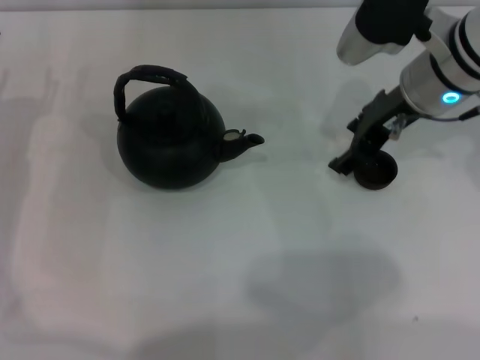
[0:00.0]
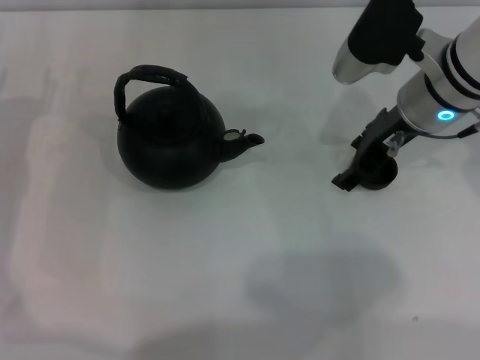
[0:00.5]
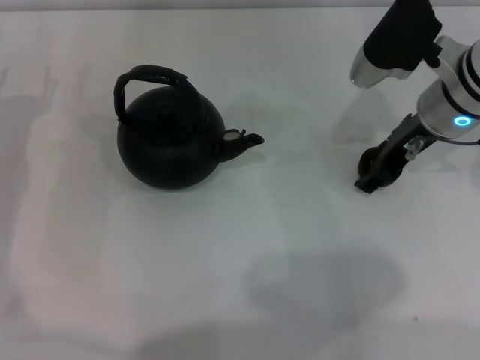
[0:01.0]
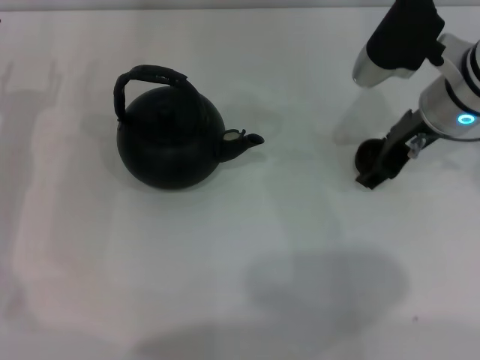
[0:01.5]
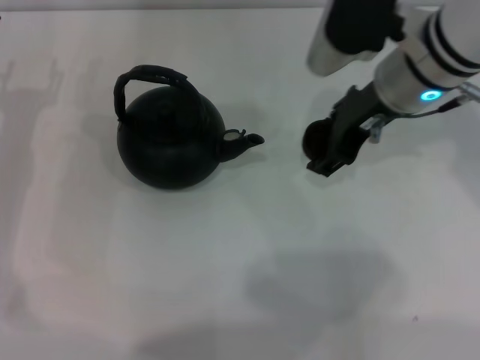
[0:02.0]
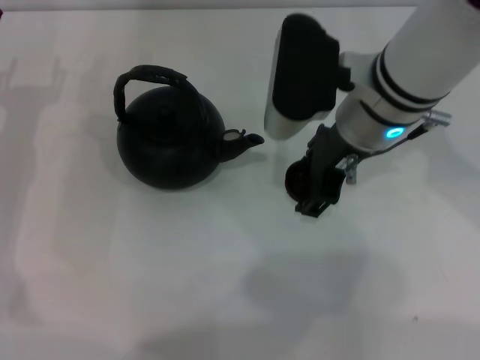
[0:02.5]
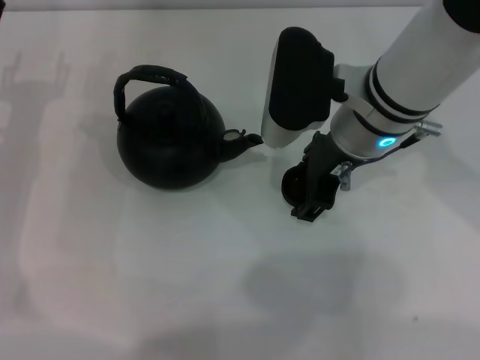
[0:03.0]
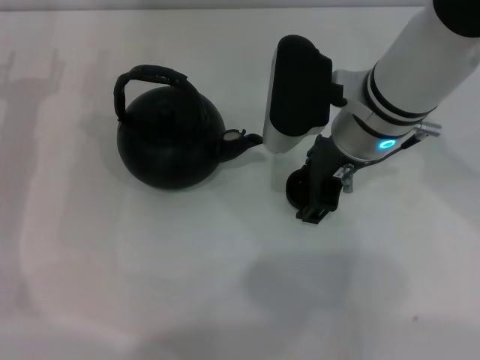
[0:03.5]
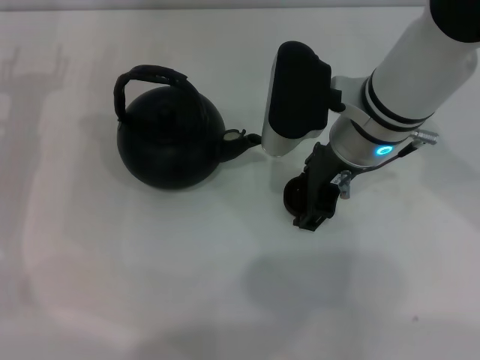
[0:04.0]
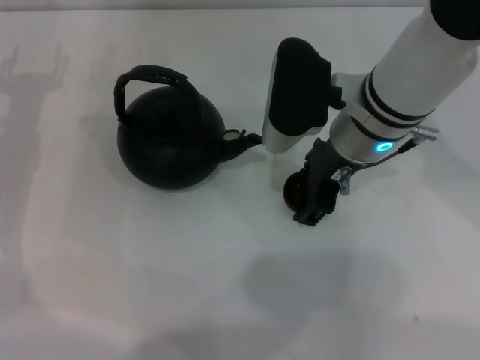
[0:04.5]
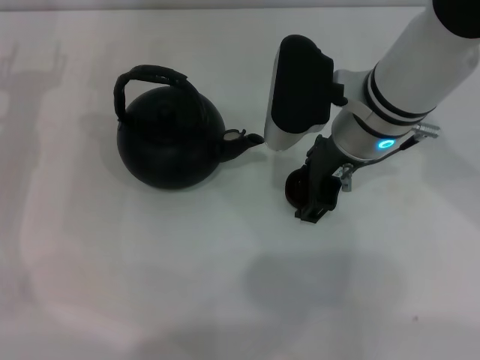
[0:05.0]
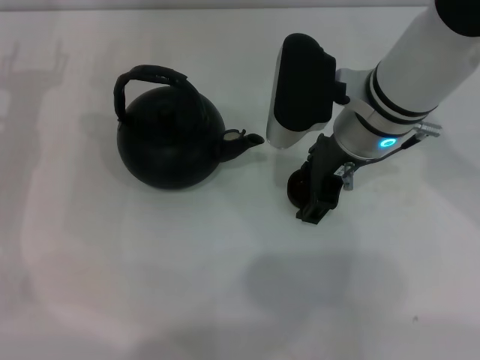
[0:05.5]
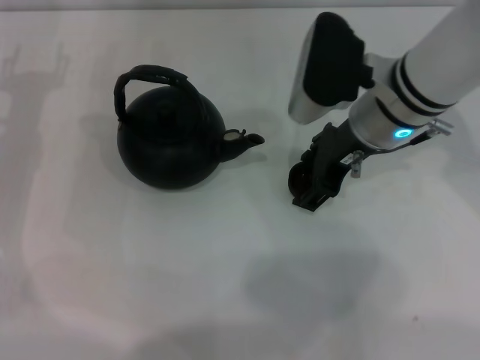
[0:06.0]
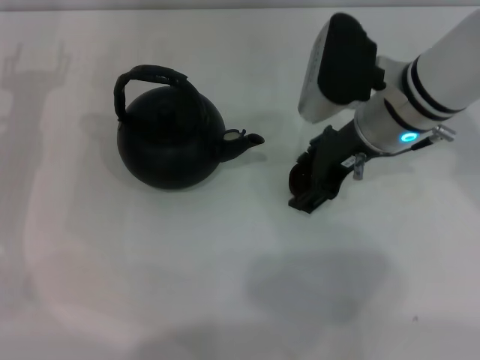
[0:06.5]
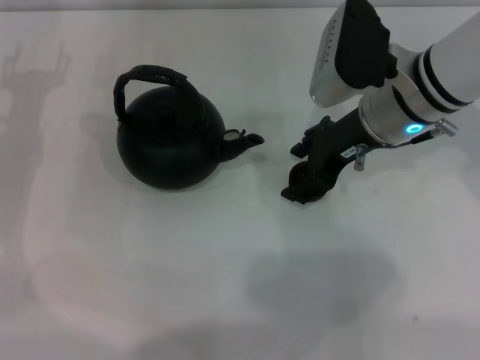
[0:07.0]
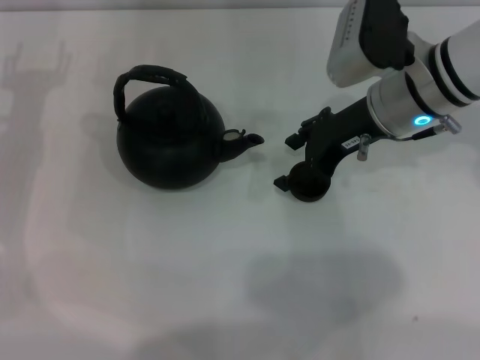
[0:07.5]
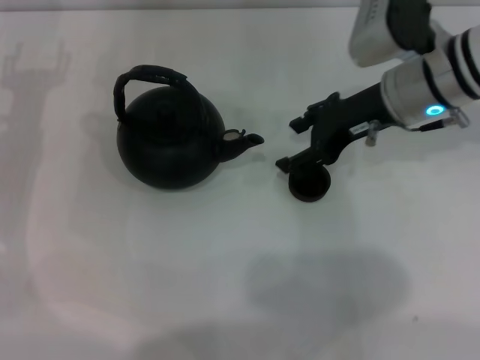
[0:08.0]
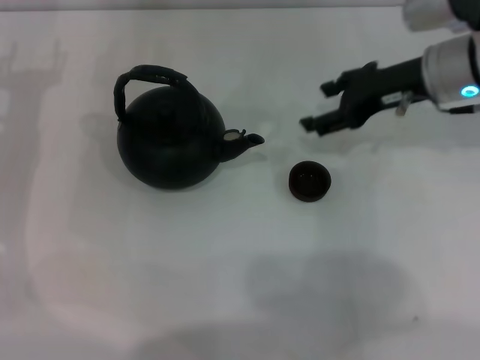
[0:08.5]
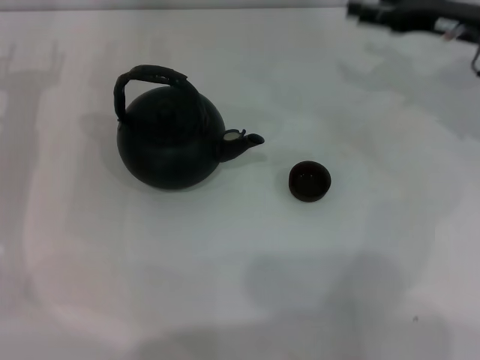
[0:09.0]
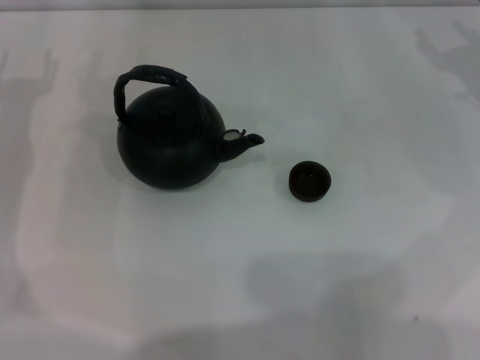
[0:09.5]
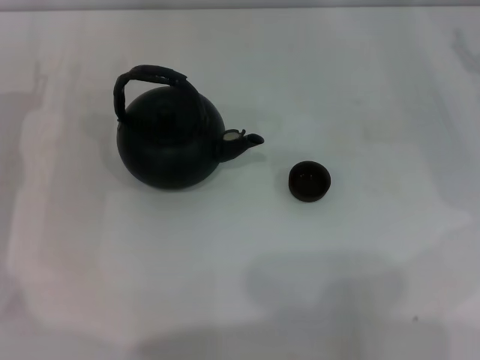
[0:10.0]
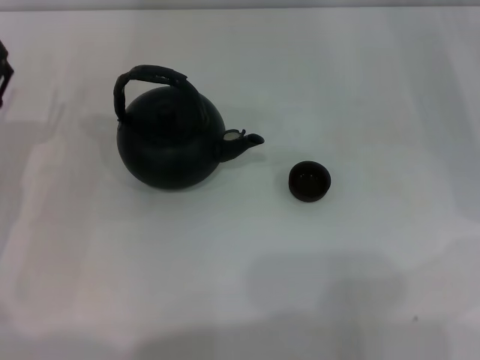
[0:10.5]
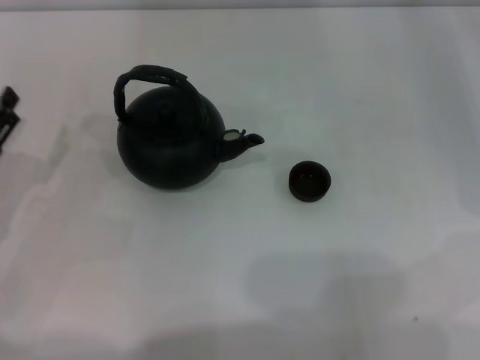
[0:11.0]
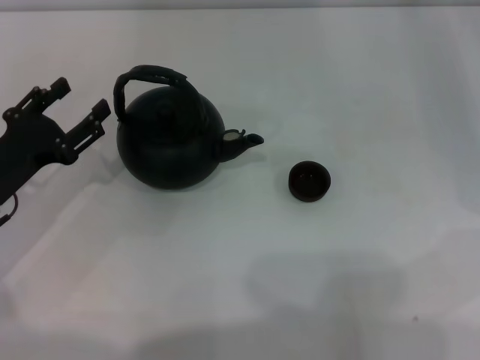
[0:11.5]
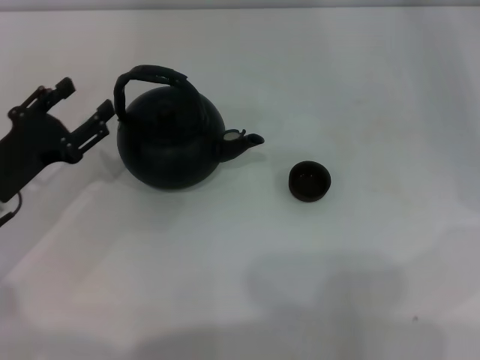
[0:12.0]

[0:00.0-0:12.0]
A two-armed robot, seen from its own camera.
Task of the whole recording: Grasp the handle of the teapot with one hand and pour tea into the teacup.
Step, 0:02.0 to 0:08.5: Place the teacup in the center of view with the right gripper.
0:00.0 to 0:02.0: The grippers make only small movements.
0:02.0 to 0:04.0: The right gripper ends up about 5 cm from where it was.
0:04.0 to 0:06.0: The grippers move only a little.
0:08.0 to 0:10.0: The right gripper shifts some 15 cm to the right.
0:10.0 to 0:12.0: The left gripper moves backward, roughly 5 cm.

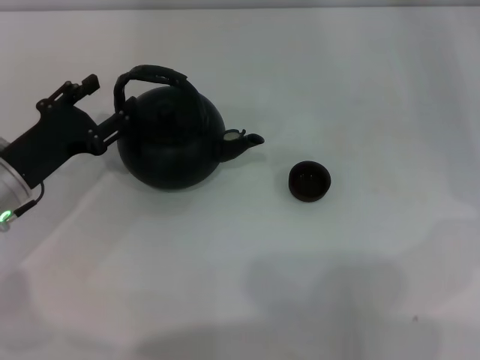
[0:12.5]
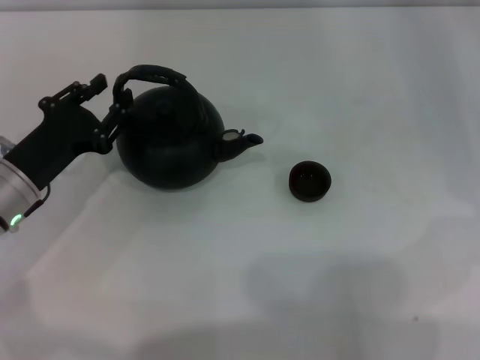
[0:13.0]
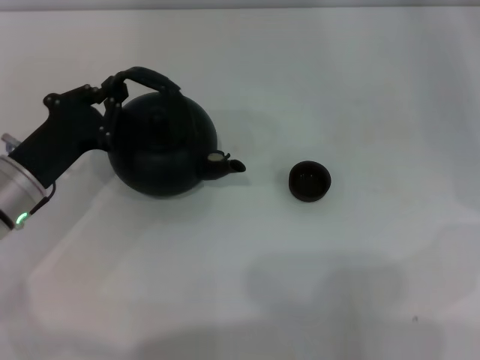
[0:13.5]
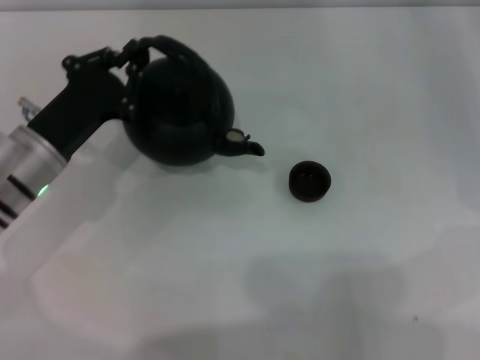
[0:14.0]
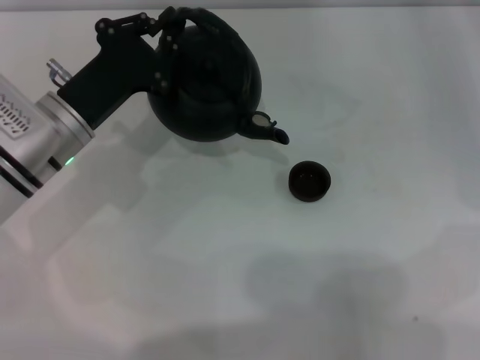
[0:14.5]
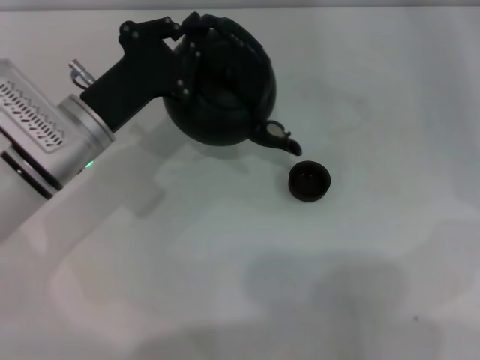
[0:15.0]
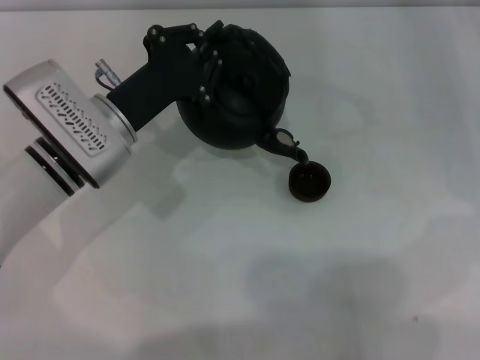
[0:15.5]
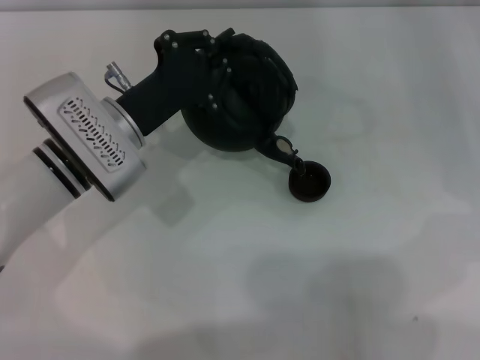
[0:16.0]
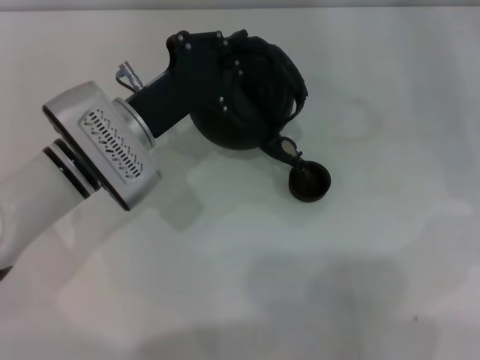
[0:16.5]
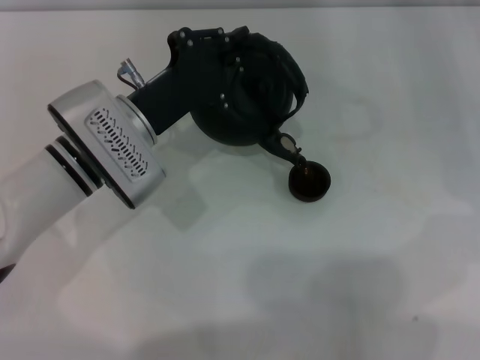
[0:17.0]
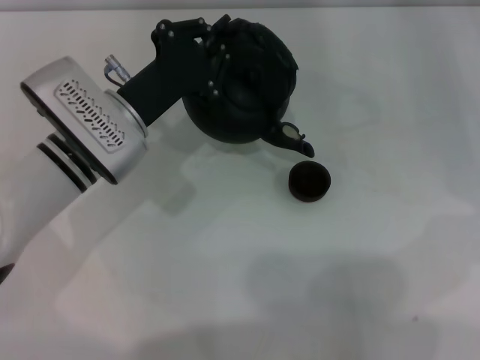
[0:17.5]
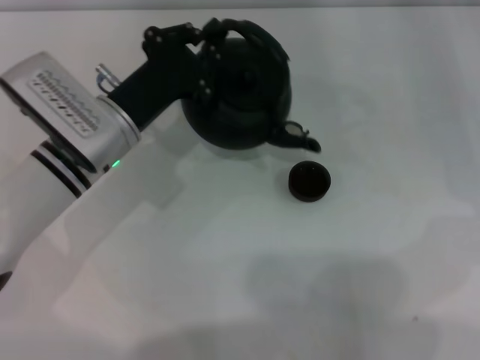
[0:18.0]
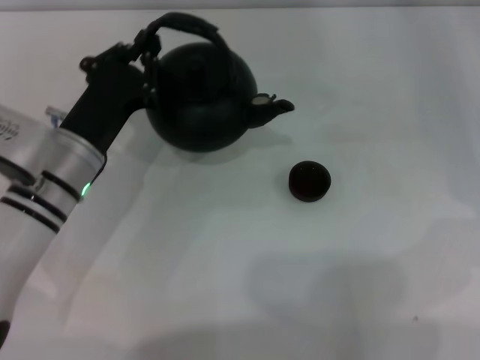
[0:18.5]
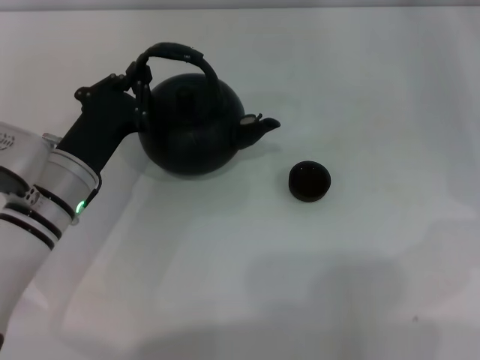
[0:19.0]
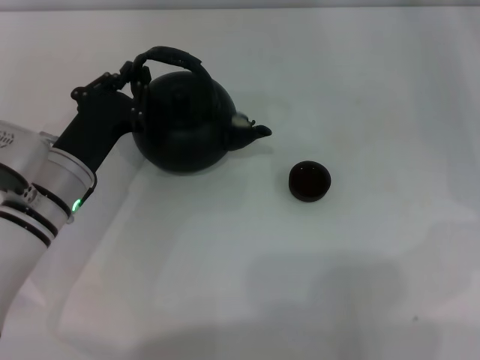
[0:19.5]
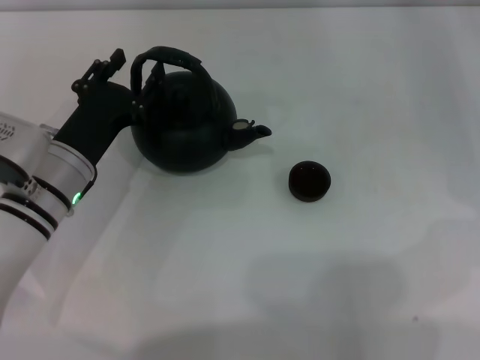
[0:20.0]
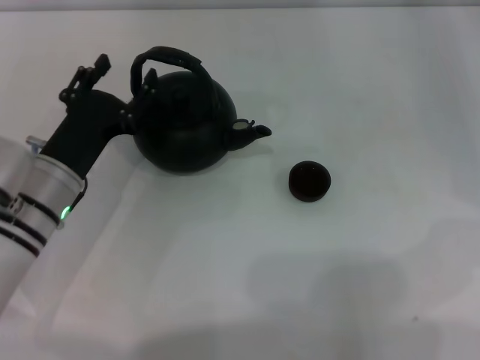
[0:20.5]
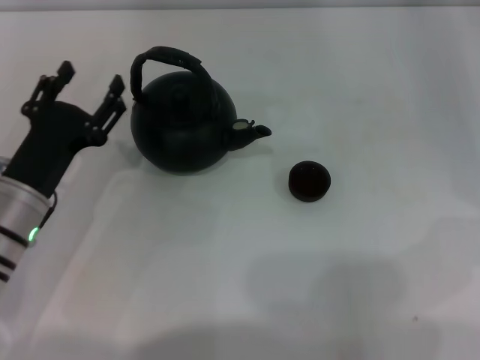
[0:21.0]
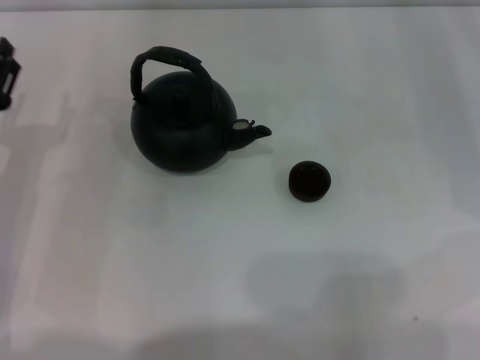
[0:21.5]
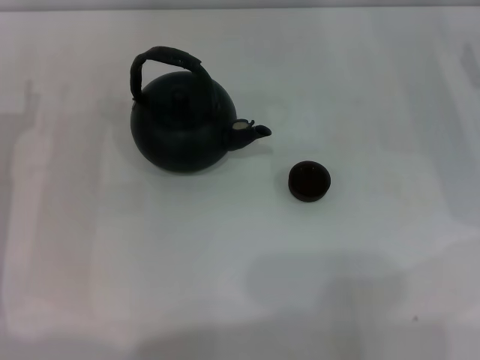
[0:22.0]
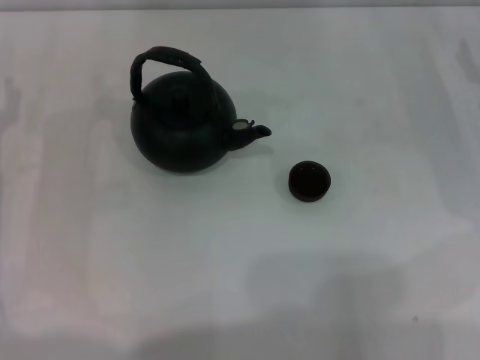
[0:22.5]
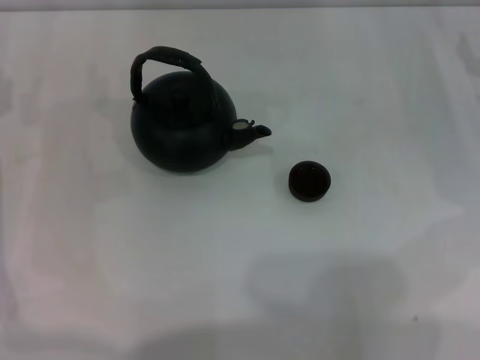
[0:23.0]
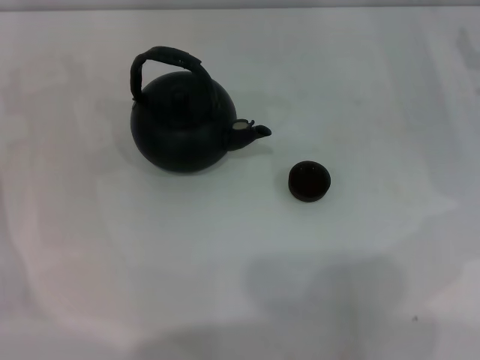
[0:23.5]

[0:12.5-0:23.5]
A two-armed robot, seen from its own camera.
Task of the whole recording: Grasp the handle of the teapot with one hand and pour tea into the teacup.
Step, 0:14.5 to 0:18.0: Pour tea into the teacup with the left gripper.
Step, 0:18.5 to 0:21.0: Put down the teapot with the left gripper.
0:12.5 to 0:14.5: The left gripper is displaced to the right by some 5 cm, and closes.
0:14.5 to 0:16.0: There are only small adjustments of the grippers.
0:16.0 to 0:18.0: The grippers make only small movements.
0:18.0 to 0:20.0: The left gripper changes place by about 5 cm, and opens.
0:20.0 to 0:21.5: The left gripper heads to the left, covering about 10 cm, and opens its fingers.

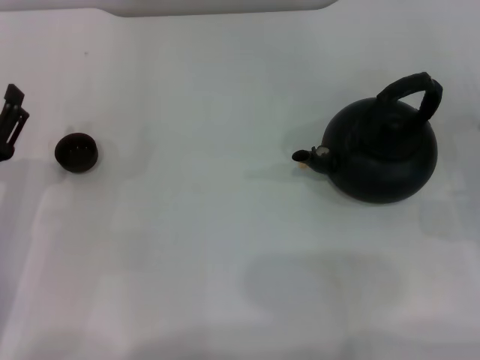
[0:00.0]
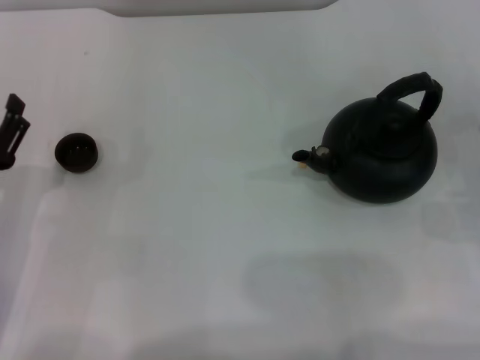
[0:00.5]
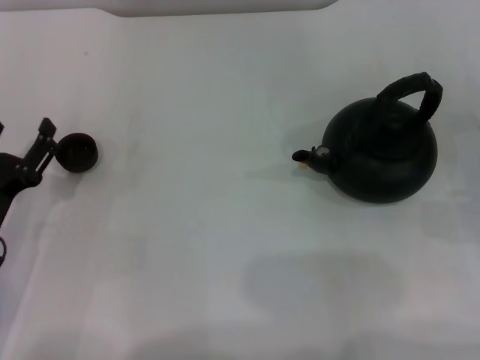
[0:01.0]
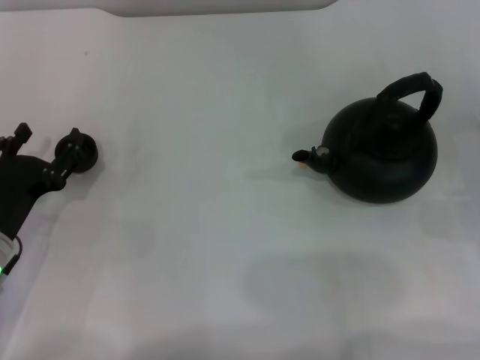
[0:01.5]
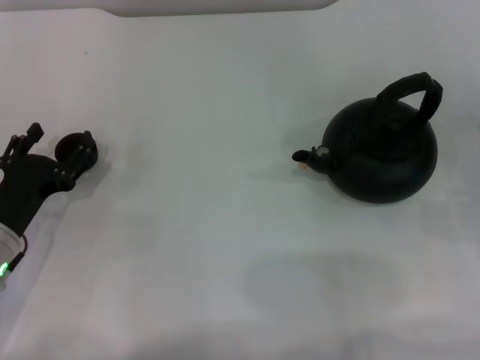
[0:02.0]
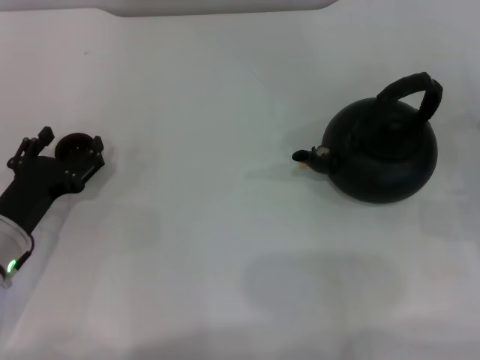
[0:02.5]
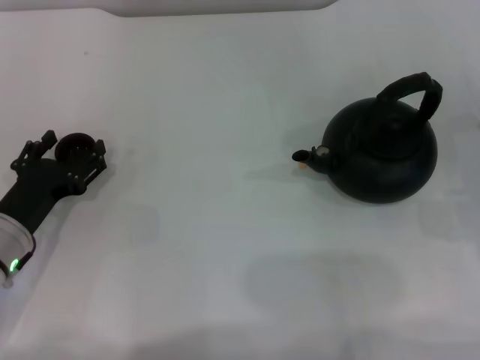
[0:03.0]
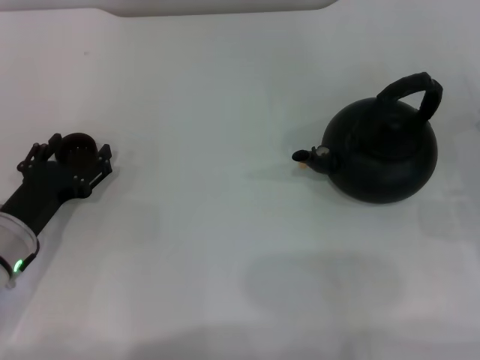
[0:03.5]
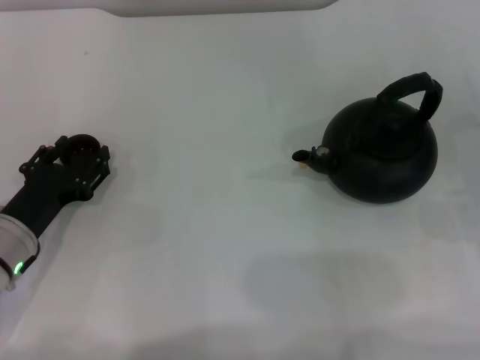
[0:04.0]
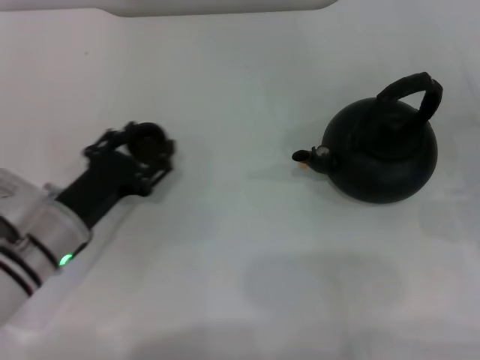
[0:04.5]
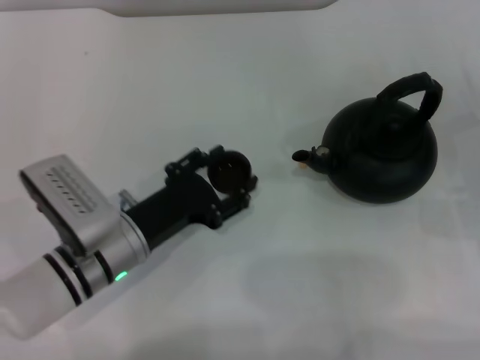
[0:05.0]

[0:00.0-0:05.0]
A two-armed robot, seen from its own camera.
Task of the whole recording: Grasp the handle of the teapot with one hand and pour tea into the teacup.
Step, 0:00.0 to 0:04.0: Pick up the teacup with the left gripper.
0:02.5 to 0:05.0: The left gripper goes about 10 cm to the right, and closes its fingers.
